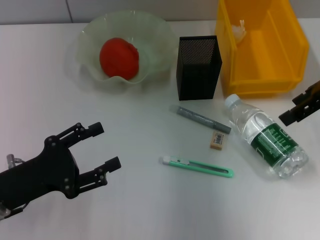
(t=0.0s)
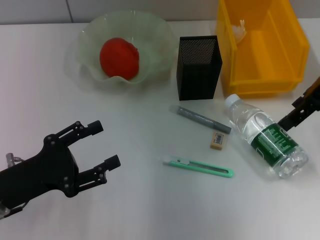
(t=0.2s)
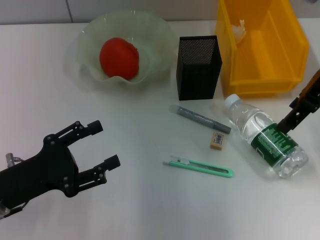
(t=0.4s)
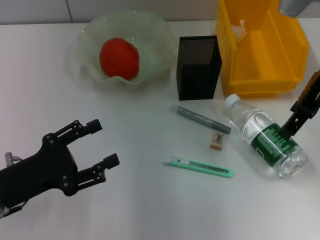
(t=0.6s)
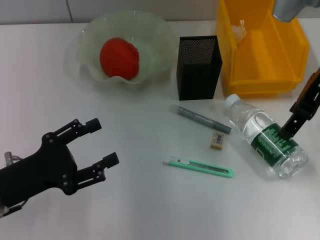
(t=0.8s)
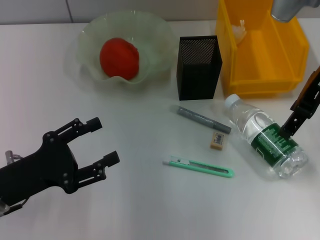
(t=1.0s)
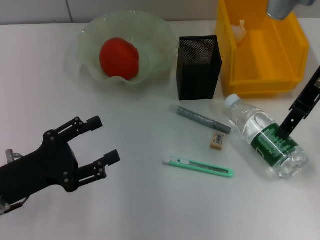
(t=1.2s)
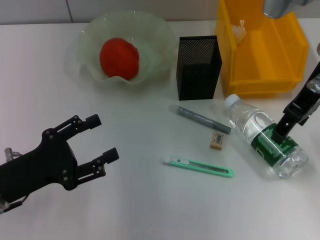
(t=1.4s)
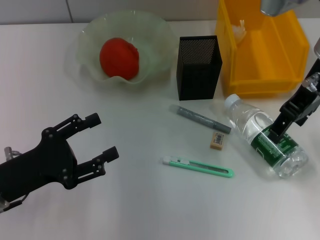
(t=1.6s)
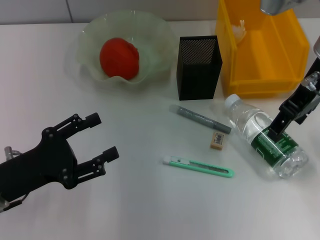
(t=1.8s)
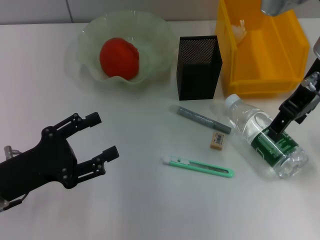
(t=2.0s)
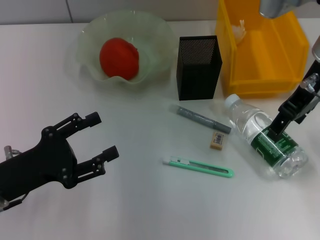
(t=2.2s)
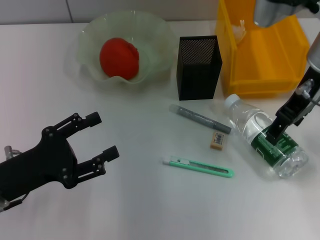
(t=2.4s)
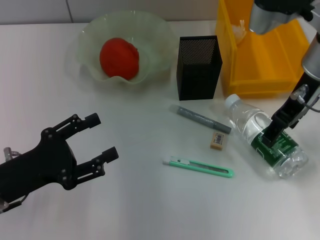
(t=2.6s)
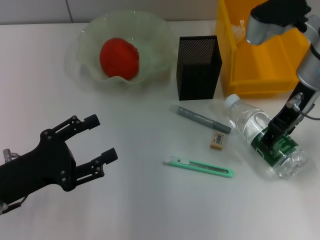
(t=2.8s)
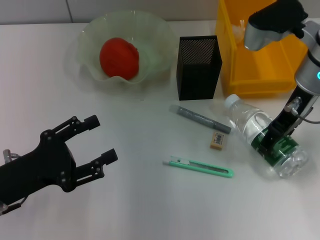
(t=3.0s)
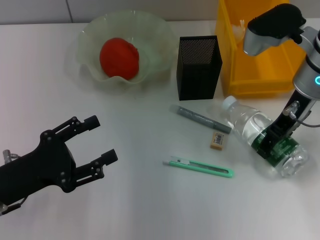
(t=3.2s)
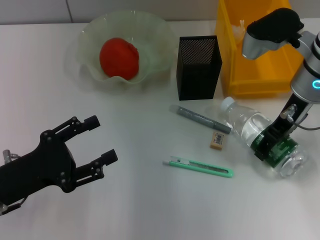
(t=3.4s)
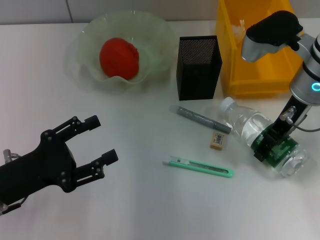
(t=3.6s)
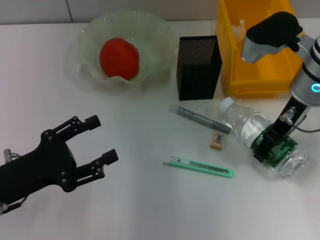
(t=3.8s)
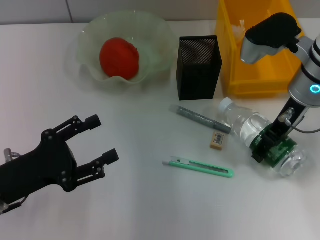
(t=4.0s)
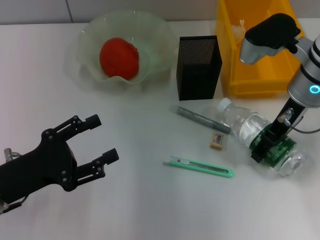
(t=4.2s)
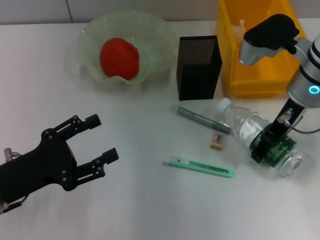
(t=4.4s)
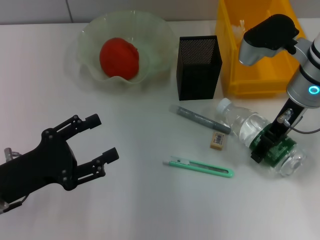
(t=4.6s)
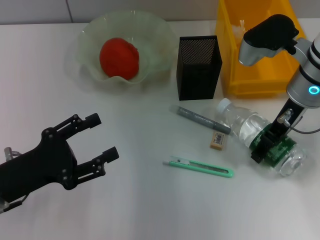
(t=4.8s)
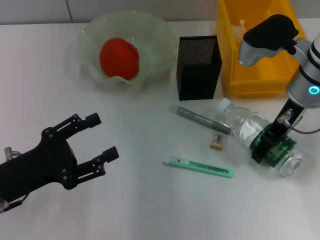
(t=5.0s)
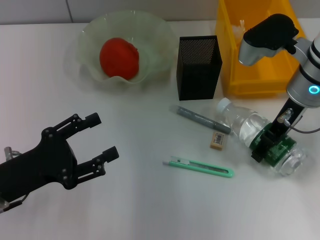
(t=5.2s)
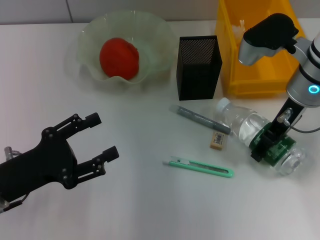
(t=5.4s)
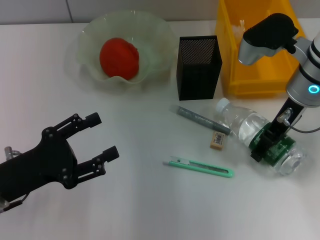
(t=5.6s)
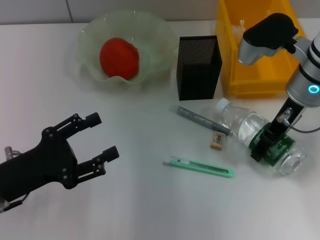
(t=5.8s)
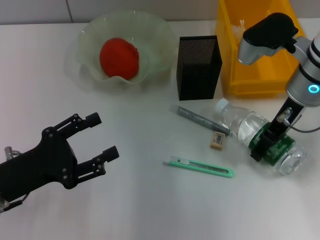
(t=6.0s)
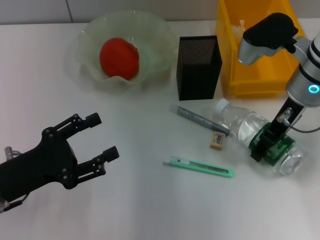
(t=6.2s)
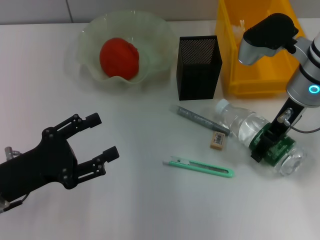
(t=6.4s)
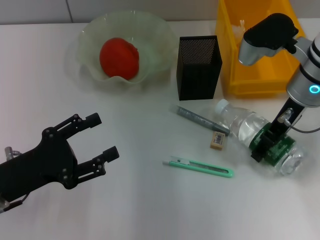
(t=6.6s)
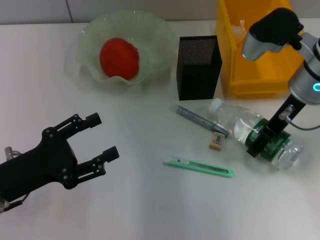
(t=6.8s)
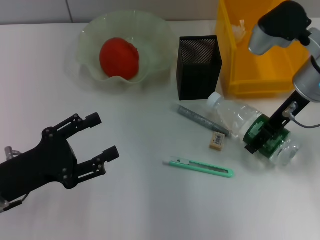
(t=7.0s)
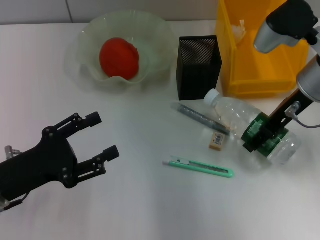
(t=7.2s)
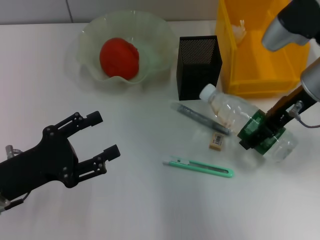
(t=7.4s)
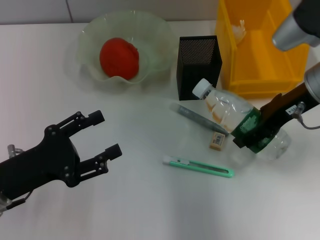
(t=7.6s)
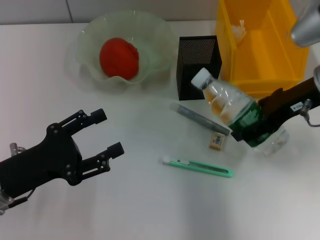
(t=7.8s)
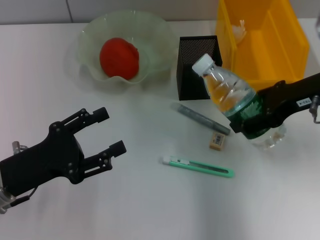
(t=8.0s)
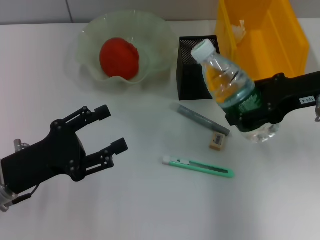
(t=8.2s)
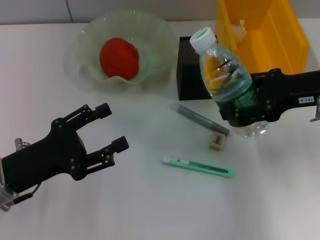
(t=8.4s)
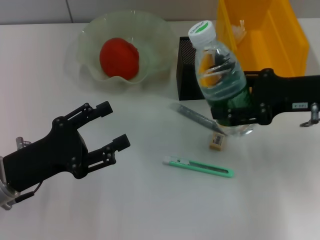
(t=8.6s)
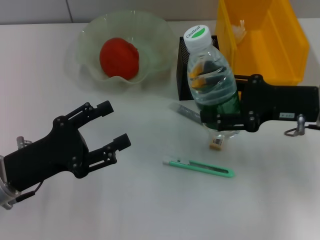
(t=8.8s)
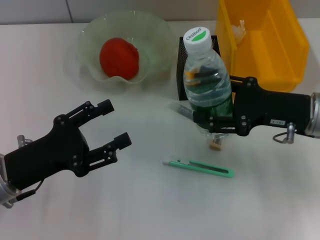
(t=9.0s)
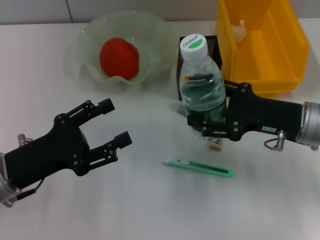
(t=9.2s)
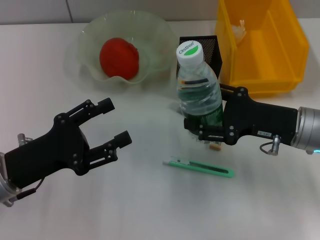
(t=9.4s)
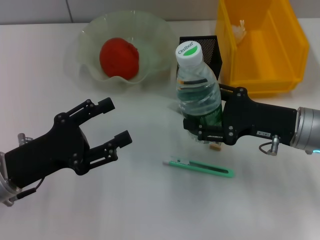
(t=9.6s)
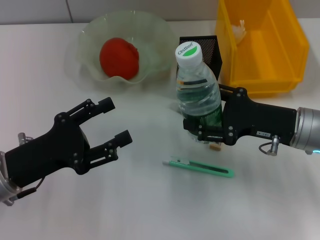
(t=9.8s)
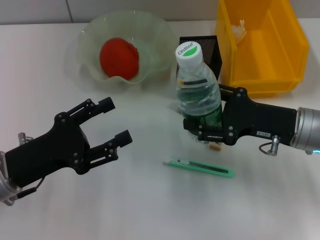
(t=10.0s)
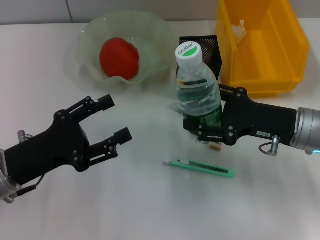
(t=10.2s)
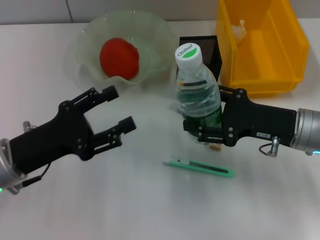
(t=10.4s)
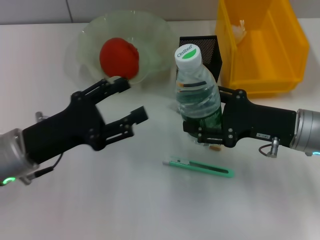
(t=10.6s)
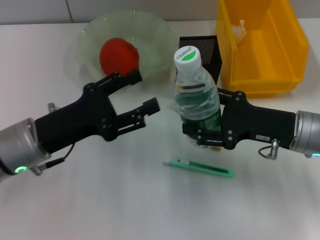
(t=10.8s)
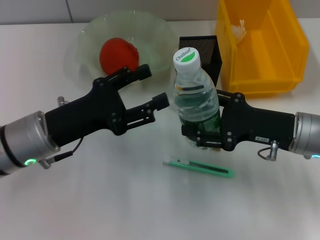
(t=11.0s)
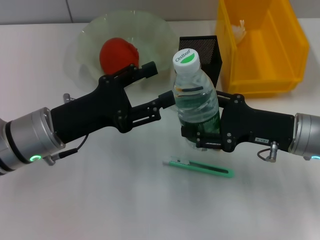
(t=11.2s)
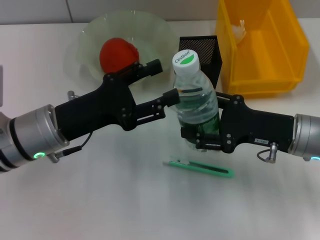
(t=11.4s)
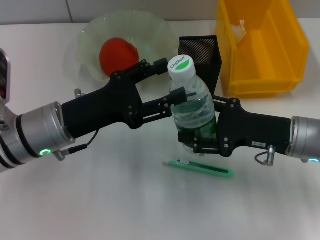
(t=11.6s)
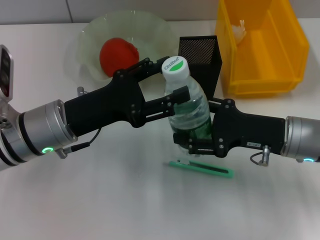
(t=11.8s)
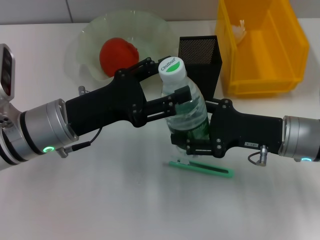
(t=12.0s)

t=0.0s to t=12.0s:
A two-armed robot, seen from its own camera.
Step, t=0.0s to t=5.0s: Grab the water bottle with the right hand.
t=0.0s to t=1.6s: The right gripper moves to the left, approximately 10 cm.
t=1.6s to t=3.0s: The right gripper goes roughly 5 cm downward.
t=3.0s to t=4.4s: The grippers make only small movements.
t=4.4s to t=6.0s: Neither gripper changes place.
t=7.6s to t=9.0s: The right gripper travels downward by about 5 cm.
t=9.0s to t=10.4s: The grippers stay close to where they were, moving slightly.
t=10.4s to t=12.0s: The left gripper heads to the right and forward, covering approximately 10 cm.

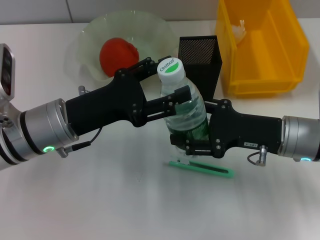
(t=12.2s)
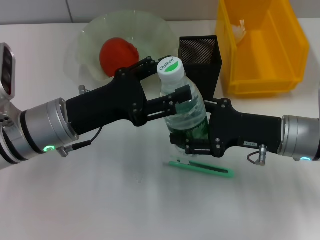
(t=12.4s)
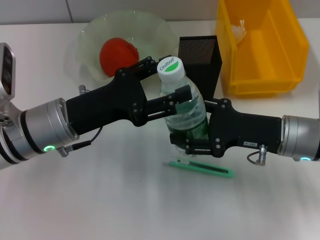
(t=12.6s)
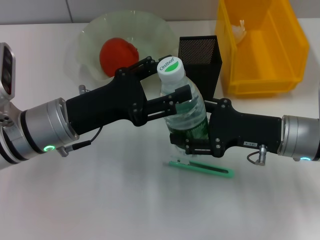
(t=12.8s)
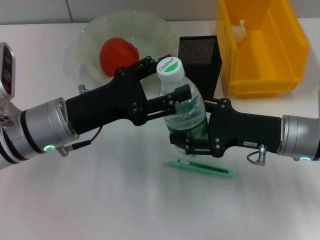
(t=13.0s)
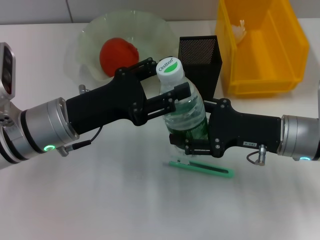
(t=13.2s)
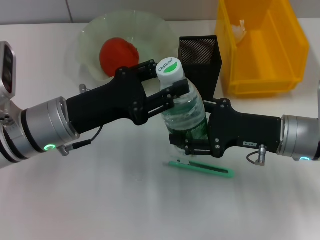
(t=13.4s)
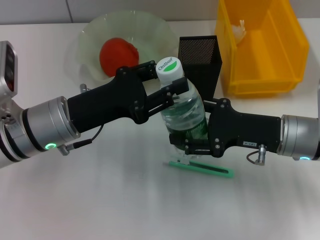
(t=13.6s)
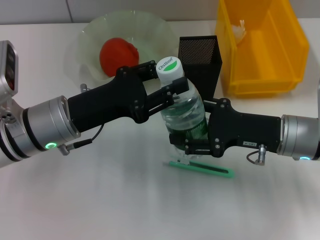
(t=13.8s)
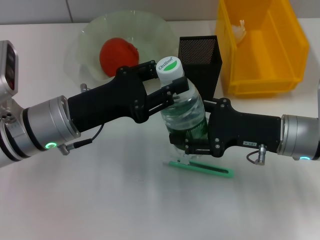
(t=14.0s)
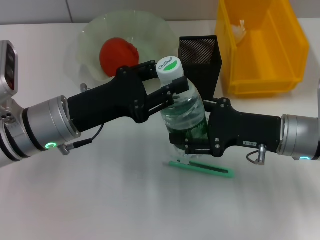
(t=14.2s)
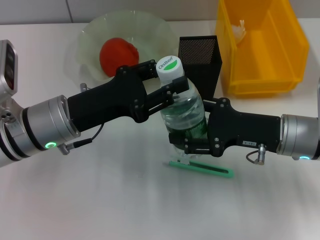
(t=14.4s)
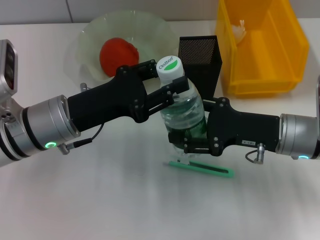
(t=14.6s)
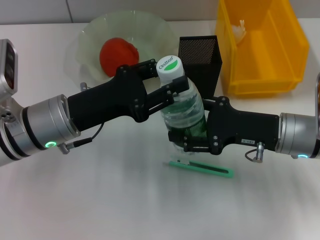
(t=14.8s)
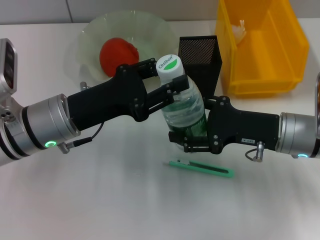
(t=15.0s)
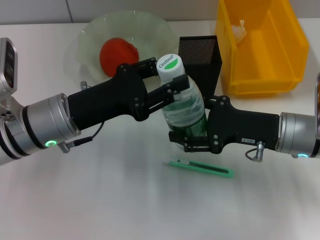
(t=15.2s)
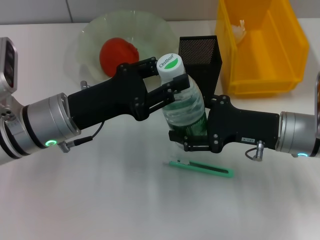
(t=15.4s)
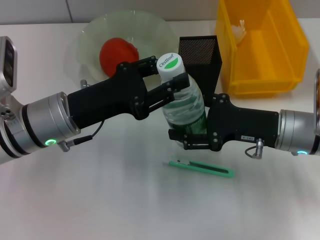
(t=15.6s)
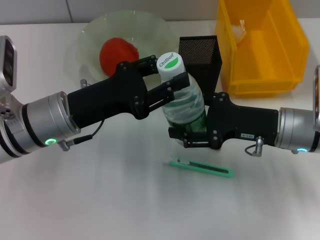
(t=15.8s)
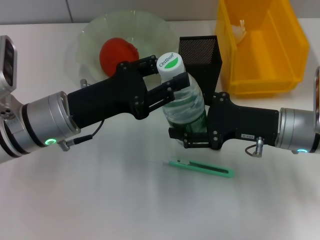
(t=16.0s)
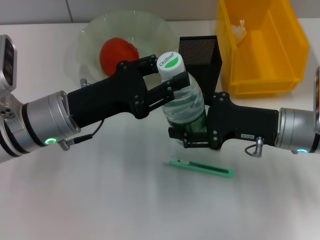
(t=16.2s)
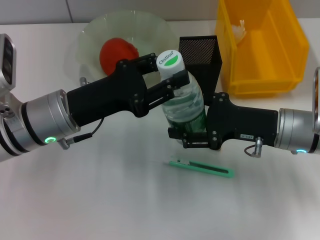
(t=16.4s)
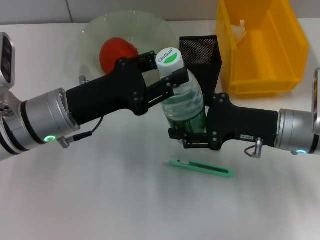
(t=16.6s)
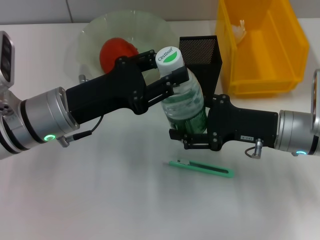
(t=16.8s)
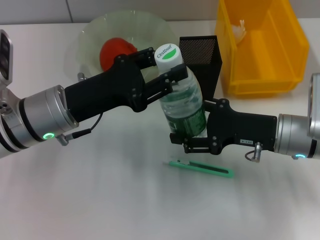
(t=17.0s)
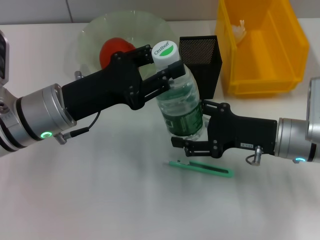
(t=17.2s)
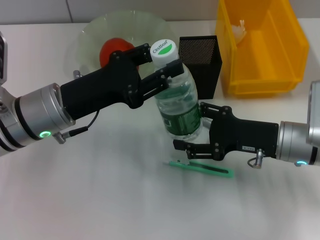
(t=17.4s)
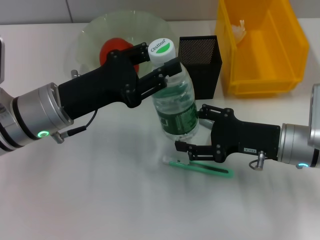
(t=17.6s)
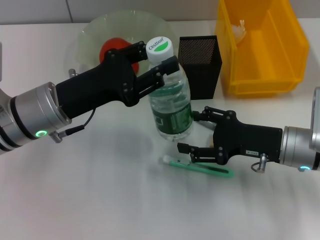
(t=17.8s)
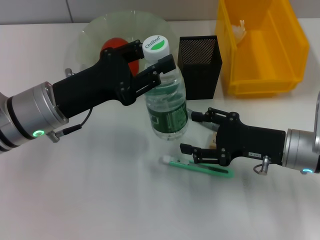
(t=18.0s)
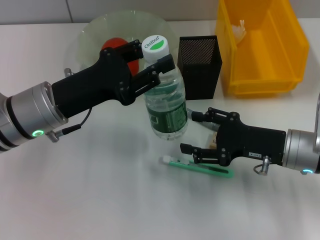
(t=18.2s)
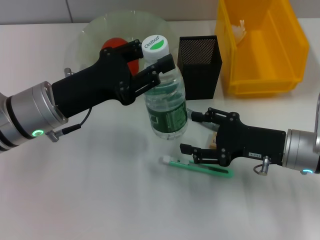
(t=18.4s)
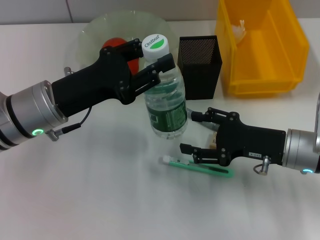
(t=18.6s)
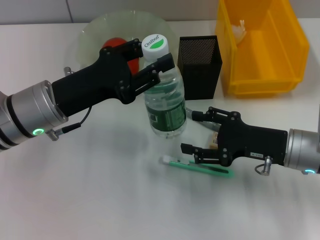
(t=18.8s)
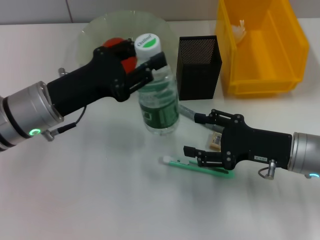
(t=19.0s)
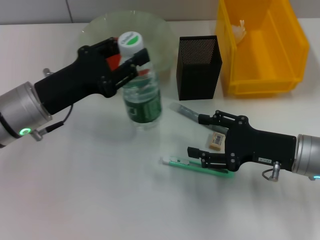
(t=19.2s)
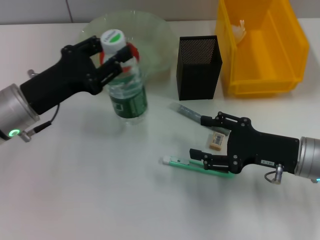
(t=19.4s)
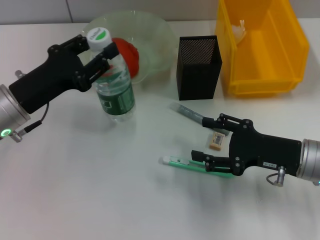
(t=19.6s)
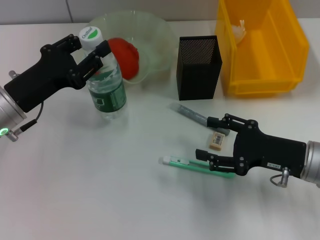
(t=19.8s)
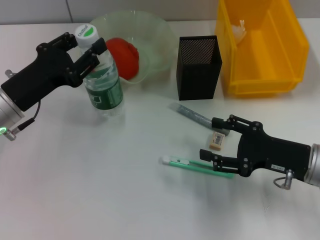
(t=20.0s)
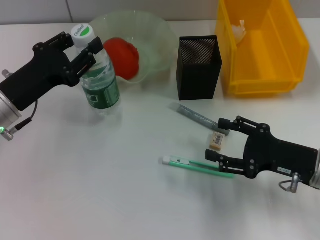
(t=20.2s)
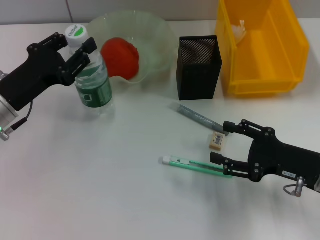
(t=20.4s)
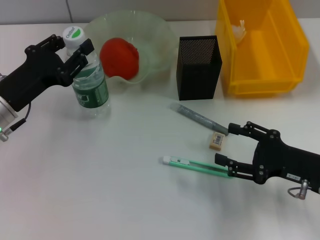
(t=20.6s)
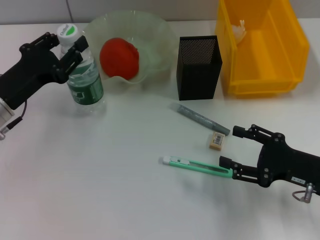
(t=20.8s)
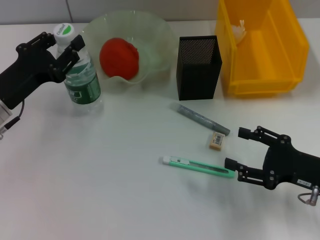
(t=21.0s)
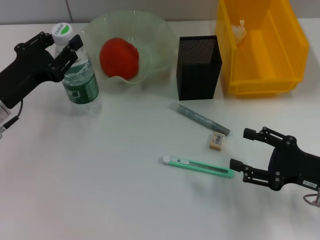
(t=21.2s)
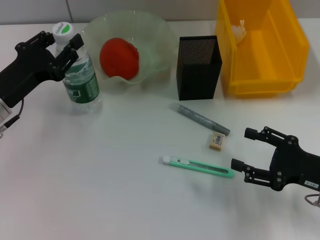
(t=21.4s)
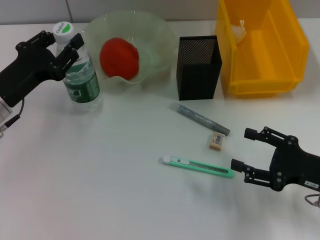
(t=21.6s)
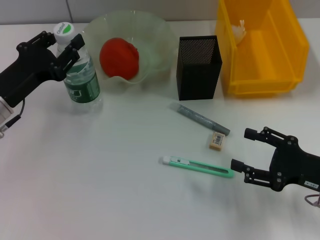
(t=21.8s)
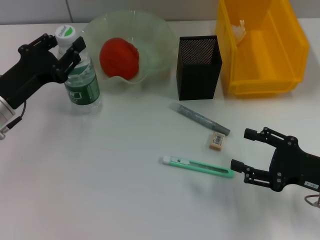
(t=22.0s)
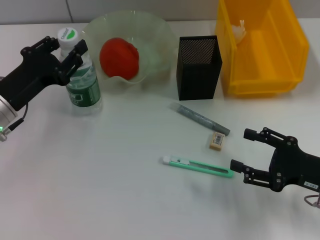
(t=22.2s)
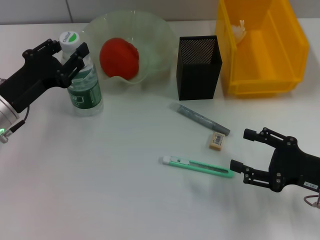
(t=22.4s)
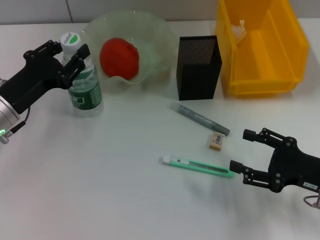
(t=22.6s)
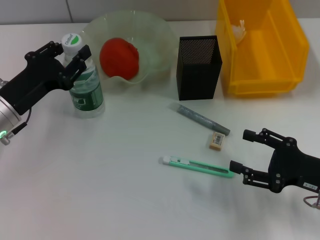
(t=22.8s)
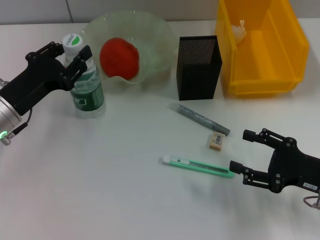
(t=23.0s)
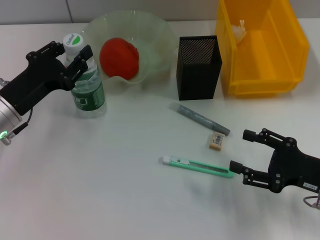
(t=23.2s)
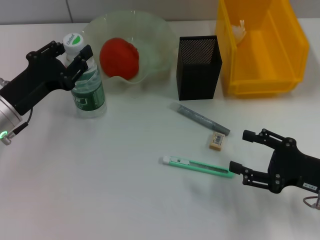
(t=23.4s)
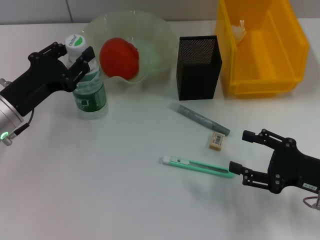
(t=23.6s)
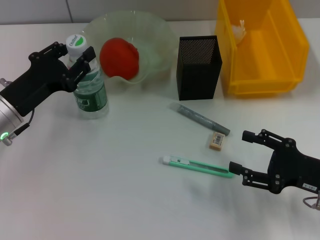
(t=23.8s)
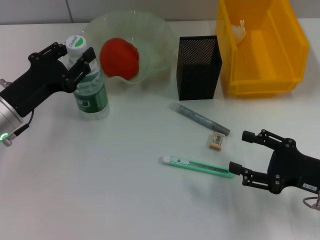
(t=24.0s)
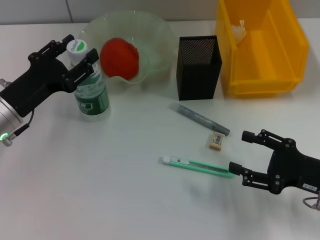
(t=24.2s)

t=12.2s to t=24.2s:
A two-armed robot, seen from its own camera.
Step, t=12.2s to t=17.8s: Pass the water bottle from the right hand to the left hand.
t=12.2s to t=13.8s: The left gripper closes up.
t=13.8s to t=16.6s: The two grippers keep their place.
t=18.2s to t=19.8s: The left gripper heads to the left, covering some 5 cm.
t=19.8s to t=21.2s: The right gripper changes place by about 5 cm.
t=21.2s to t=22.6s: Neither gripper changes place.
t=22.6s to t=24.2s: Both grippers stay about where they are.
